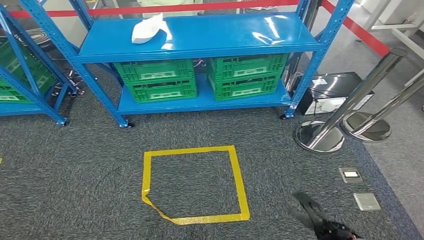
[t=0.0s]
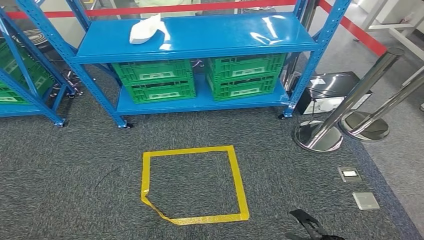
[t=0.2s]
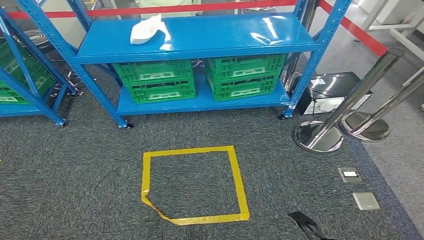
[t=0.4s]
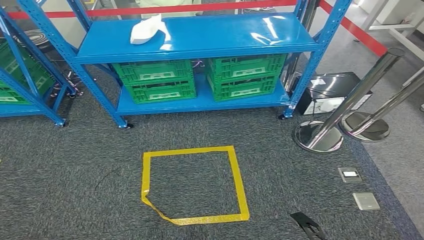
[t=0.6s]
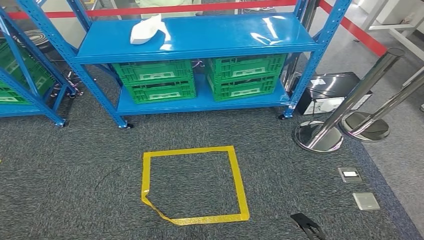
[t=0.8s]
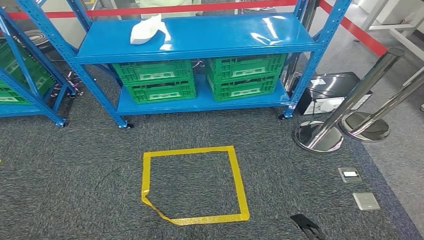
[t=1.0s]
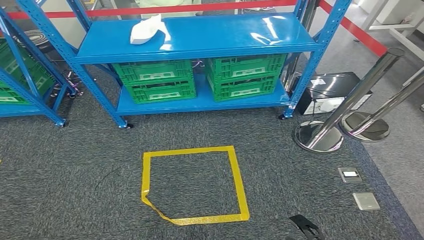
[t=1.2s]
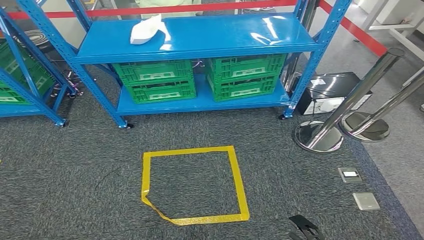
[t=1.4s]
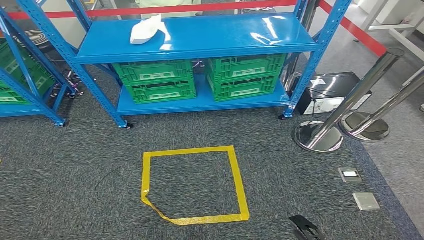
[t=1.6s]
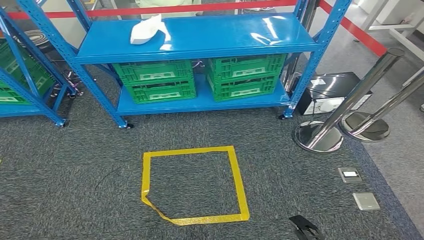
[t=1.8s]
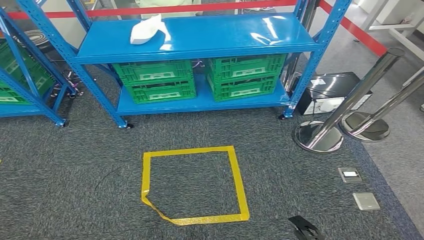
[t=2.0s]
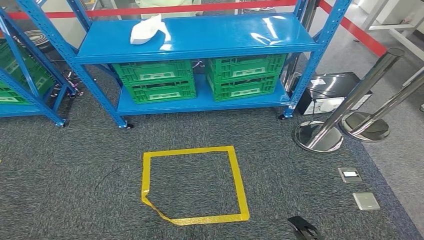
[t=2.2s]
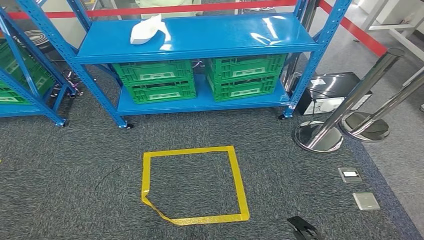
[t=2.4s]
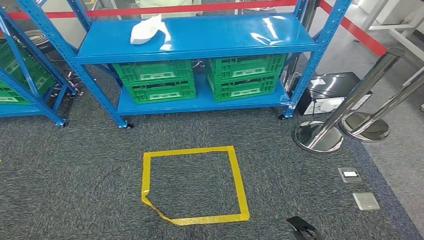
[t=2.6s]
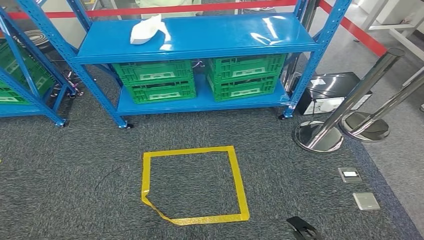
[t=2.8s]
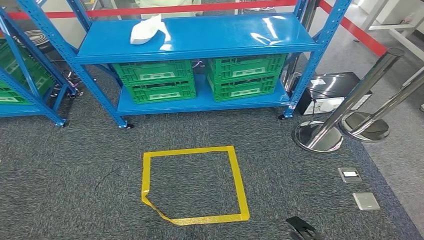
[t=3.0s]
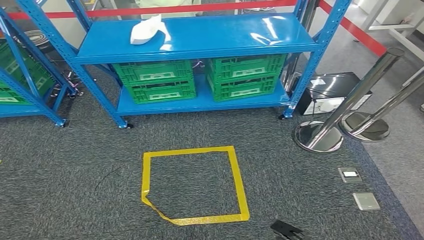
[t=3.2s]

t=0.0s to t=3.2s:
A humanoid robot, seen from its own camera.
Step, t=0.0s to t=3.2s: Return to the initial position at the workbench.
t=0.0s to t=1.6s: The right hand is displaced backward by about 5 cm.
